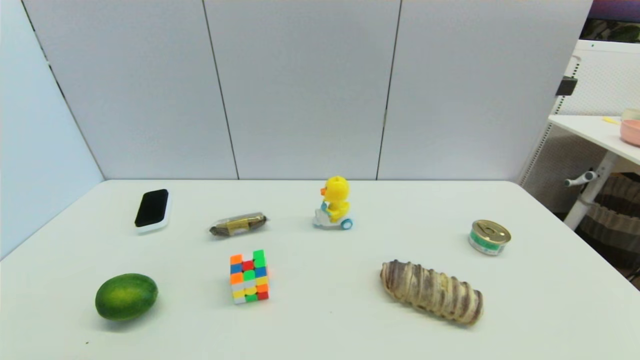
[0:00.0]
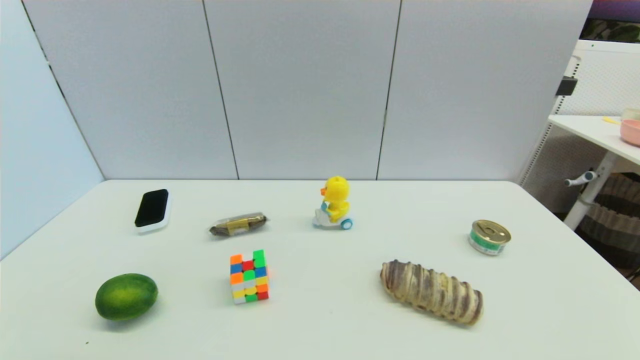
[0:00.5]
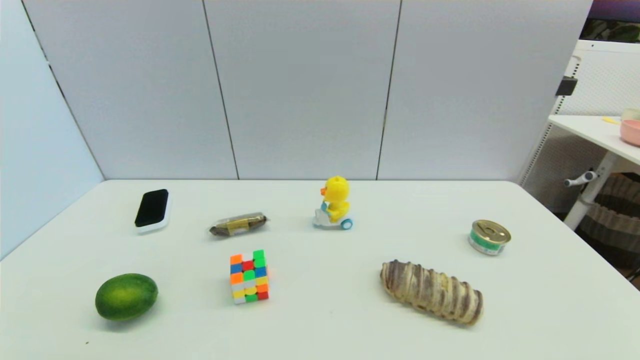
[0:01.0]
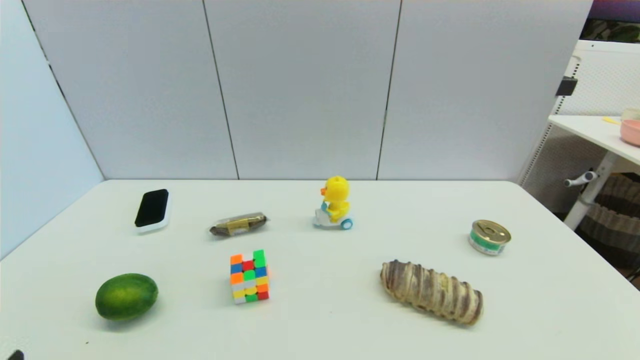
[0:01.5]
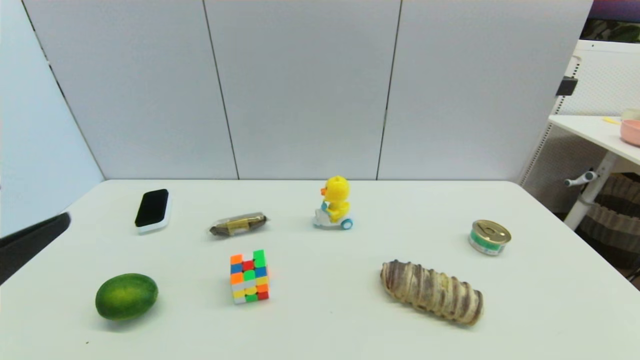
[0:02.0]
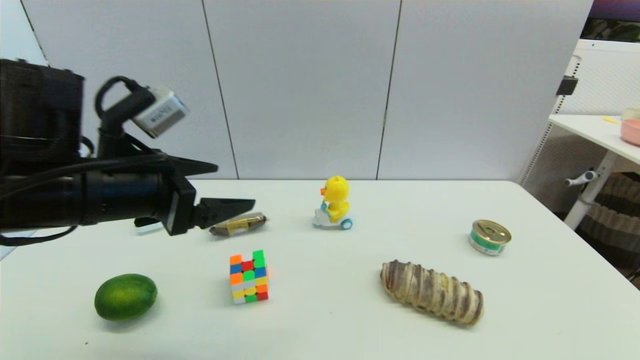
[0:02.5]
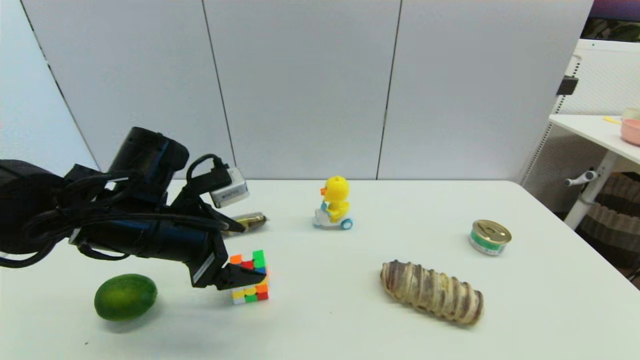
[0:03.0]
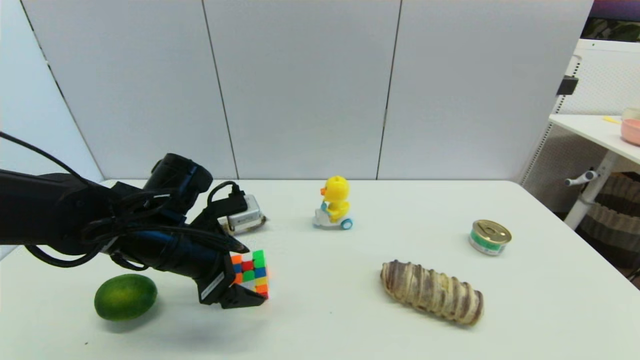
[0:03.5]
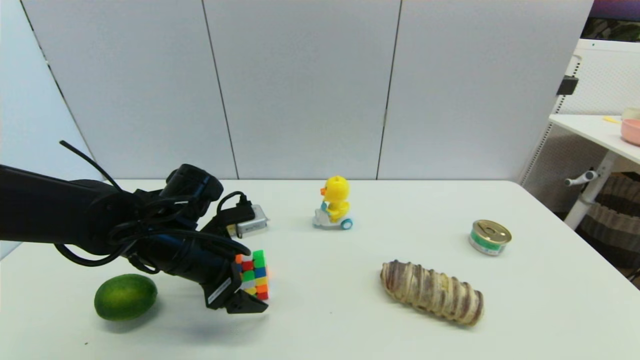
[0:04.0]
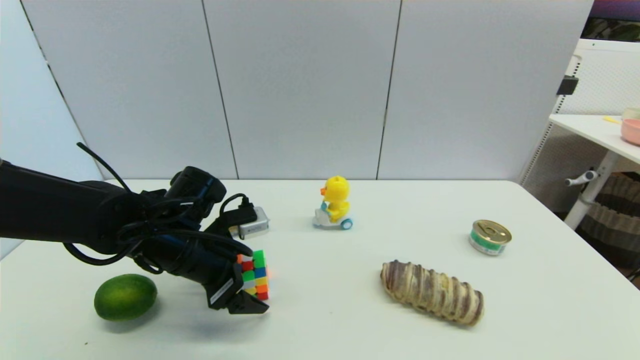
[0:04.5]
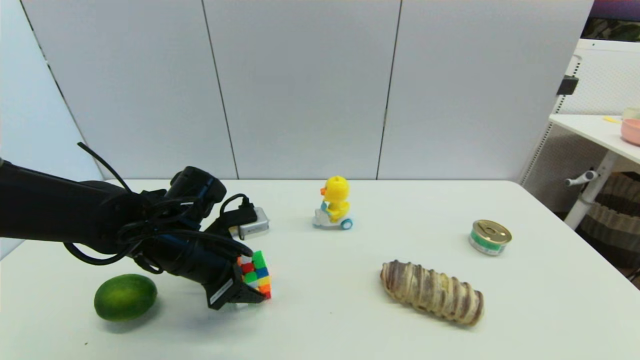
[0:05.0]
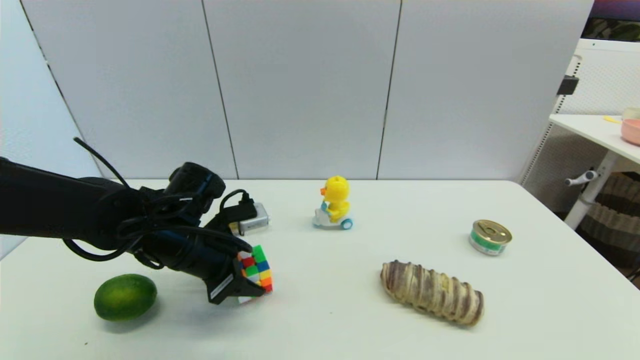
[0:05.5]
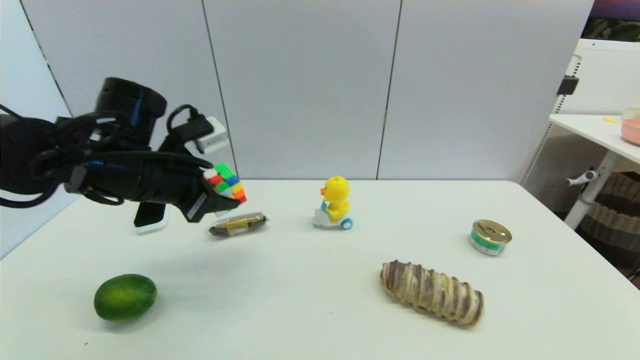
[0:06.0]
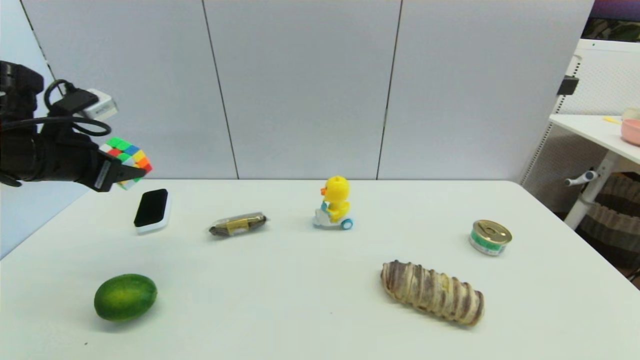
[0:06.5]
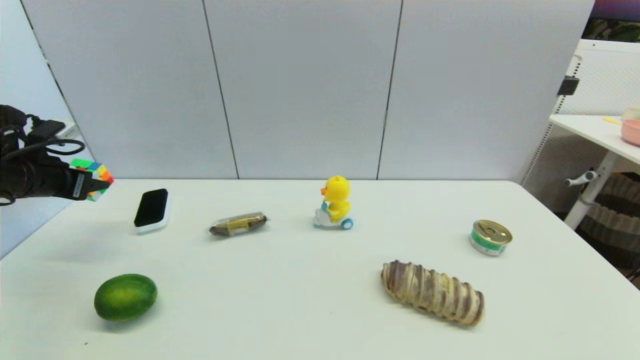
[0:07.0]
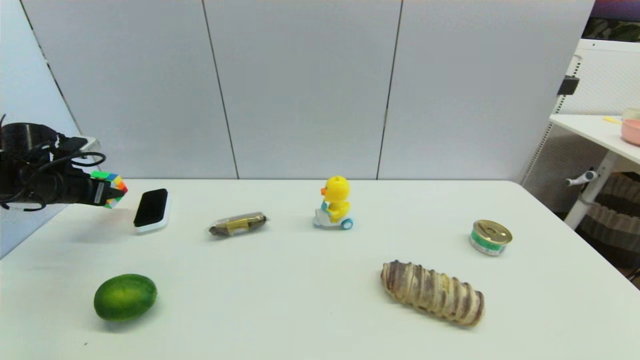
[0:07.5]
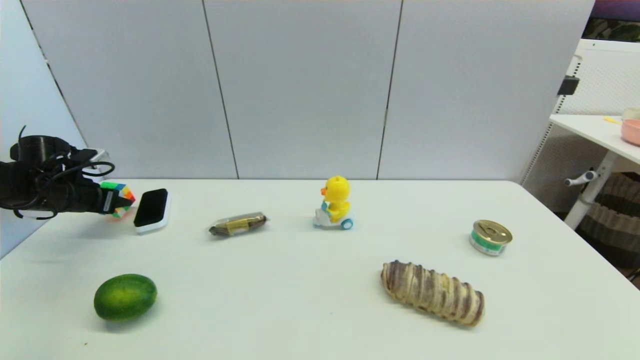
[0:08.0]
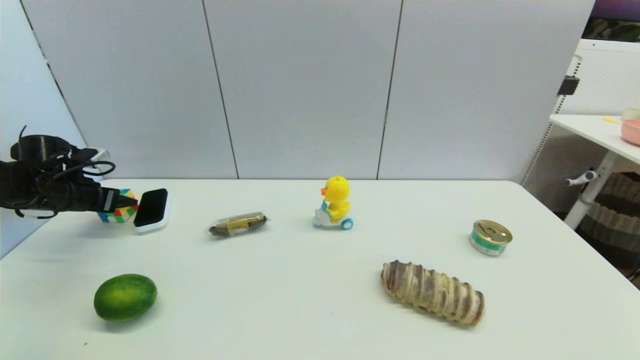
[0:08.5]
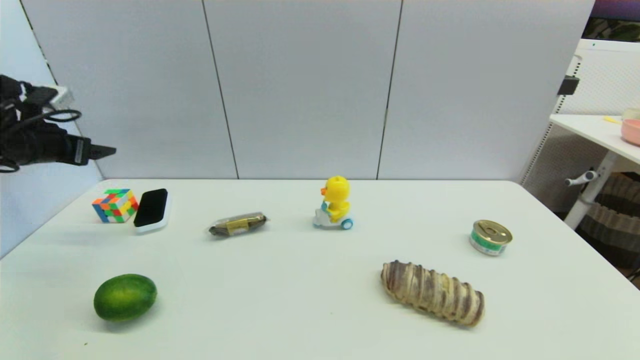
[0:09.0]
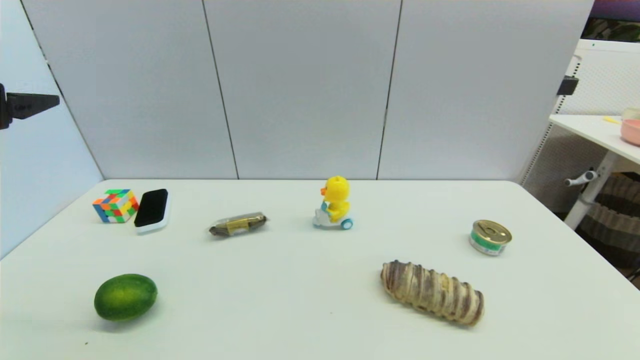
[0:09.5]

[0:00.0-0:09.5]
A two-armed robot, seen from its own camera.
Step, 0:02.0 to 0:05.0: Grasp the magic cube with left gripper.
Step, 0:05.5 to 0:08.5: Place the magic cube on the table with left gripper.
0:00.0 to 0:02.0: The left gripper shifts some 20 cm upward and forward.
0:02.0 to 0:04.0: The left gripper moves forward, downward and to the right, about 25 cm.
0:04.0 to 0:05.5: The left gripper closes up.
0:05.5 to 0:07.5: The left gripper is displaced to the left and forward by some 30 cm.
0:07.5 to 0:09.5: The left gripper travels upward, backward and to the right by about 25 cm, and opens its fingers.

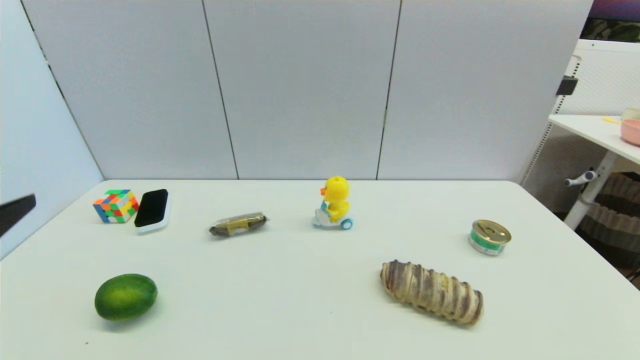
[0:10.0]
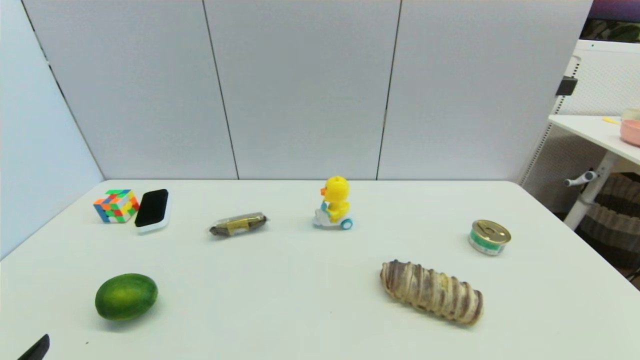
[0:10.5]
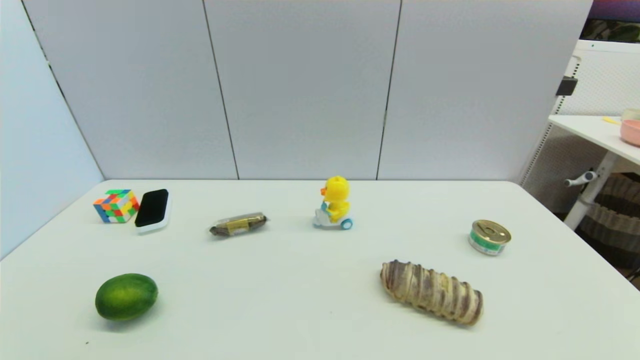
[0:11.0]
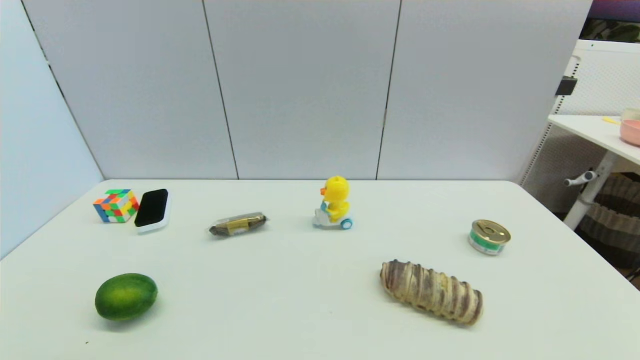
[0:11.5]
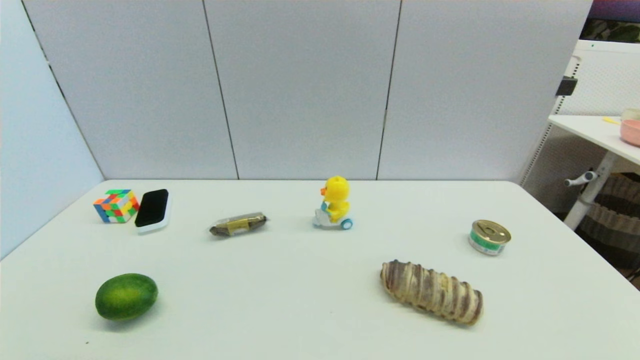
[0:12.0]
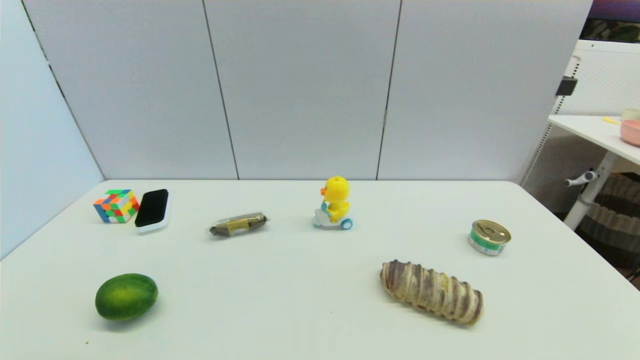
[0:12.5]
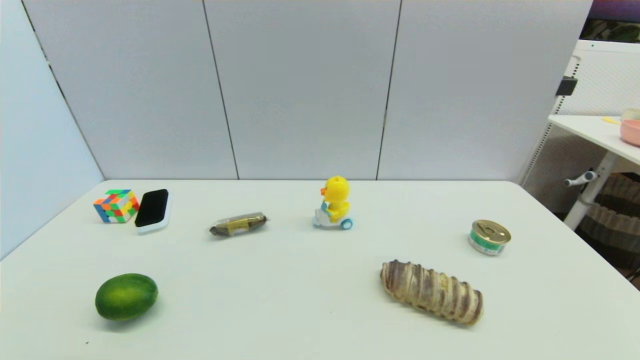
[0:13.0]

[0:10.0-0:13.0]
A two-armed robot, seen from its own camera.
0:11.5 to 0:13.0: Neither gripper changes place.
